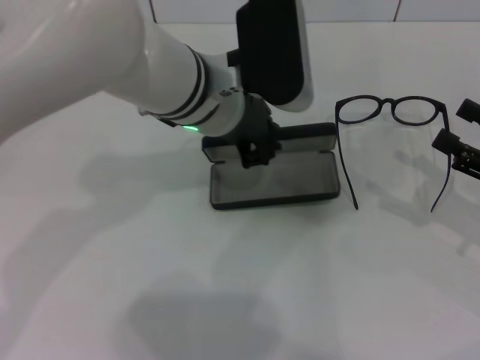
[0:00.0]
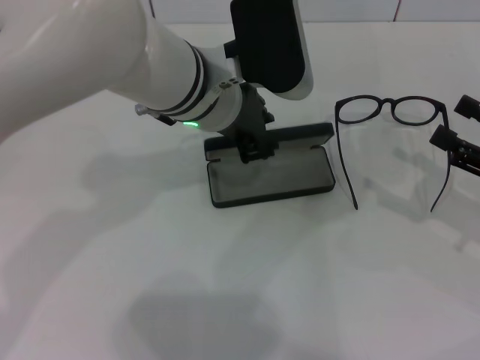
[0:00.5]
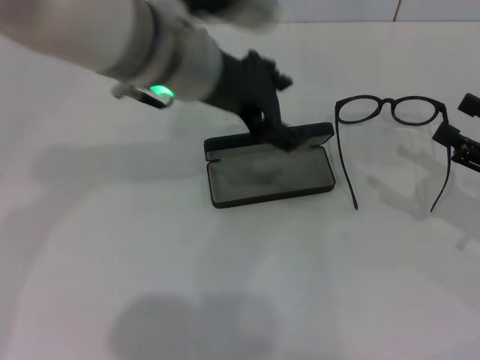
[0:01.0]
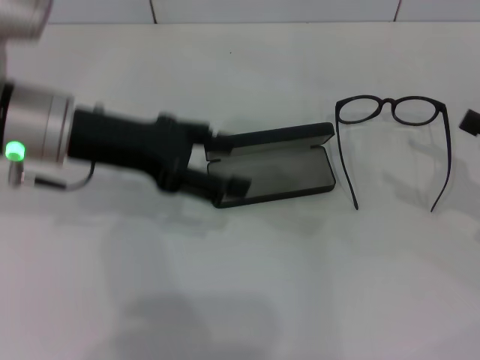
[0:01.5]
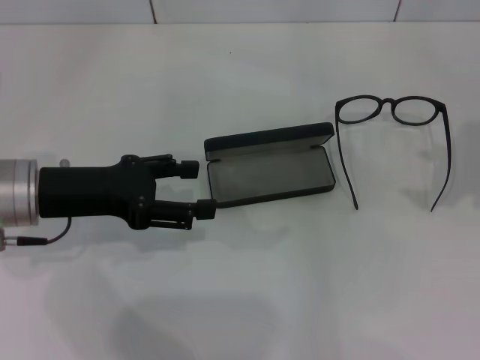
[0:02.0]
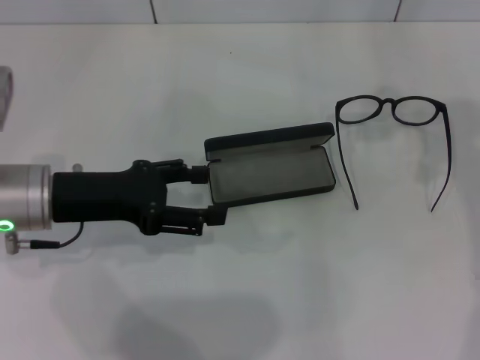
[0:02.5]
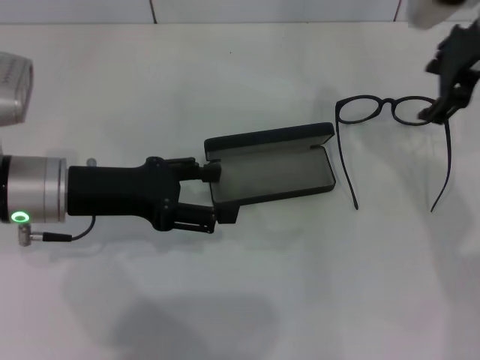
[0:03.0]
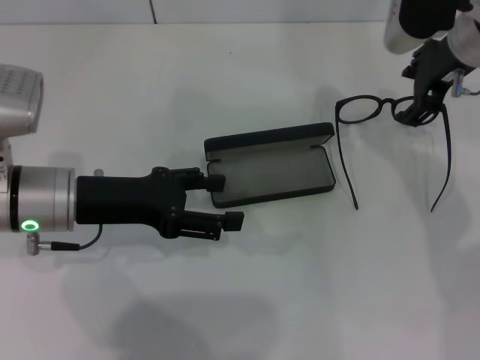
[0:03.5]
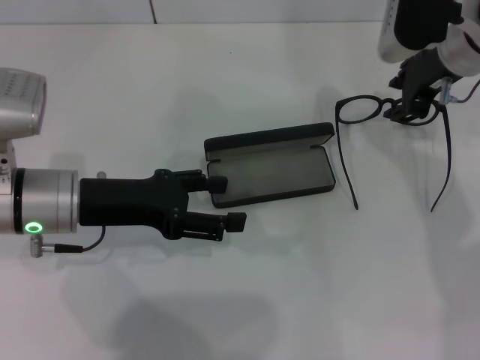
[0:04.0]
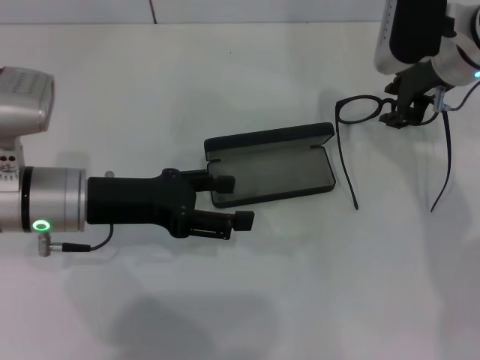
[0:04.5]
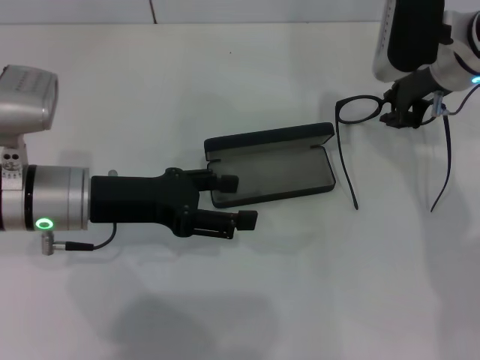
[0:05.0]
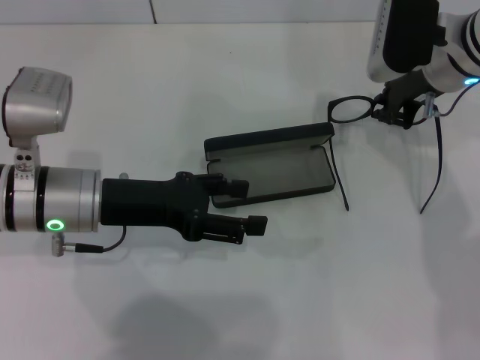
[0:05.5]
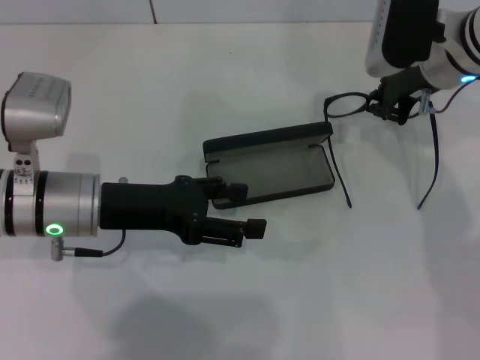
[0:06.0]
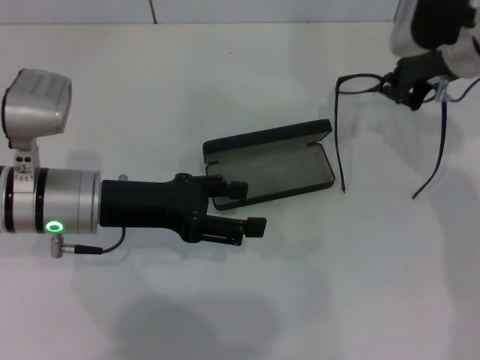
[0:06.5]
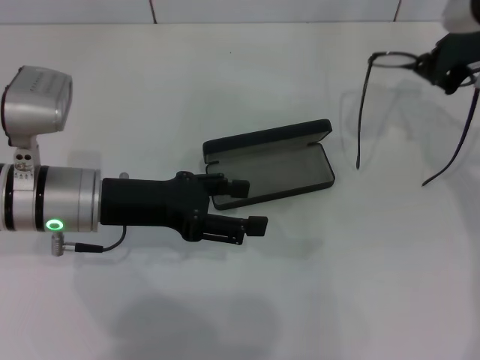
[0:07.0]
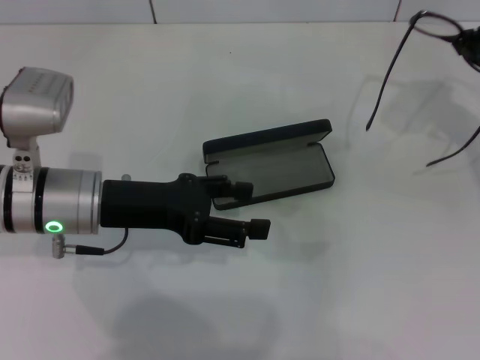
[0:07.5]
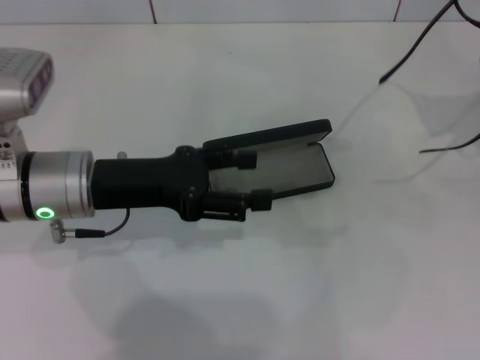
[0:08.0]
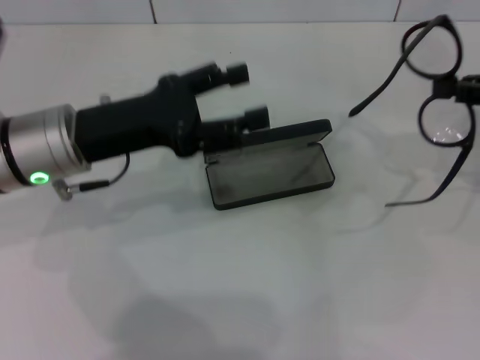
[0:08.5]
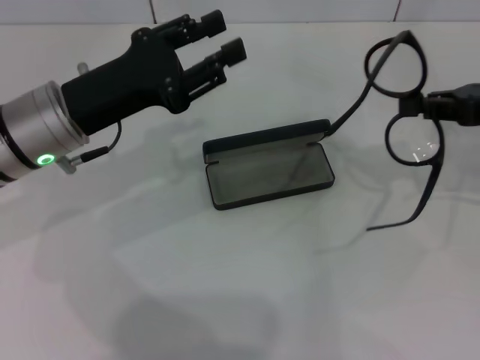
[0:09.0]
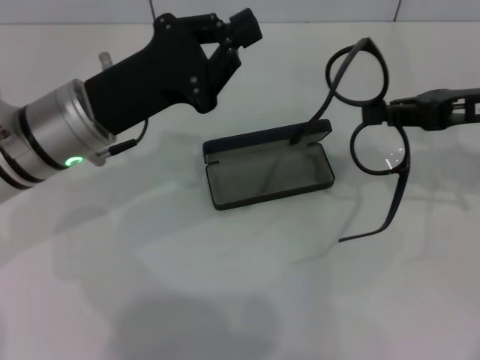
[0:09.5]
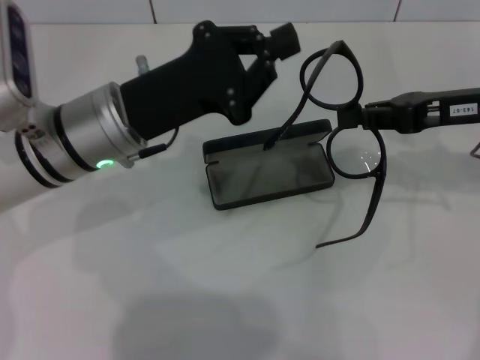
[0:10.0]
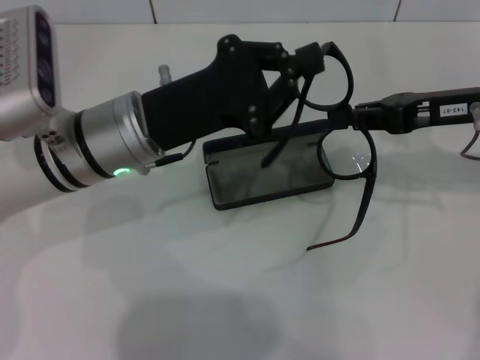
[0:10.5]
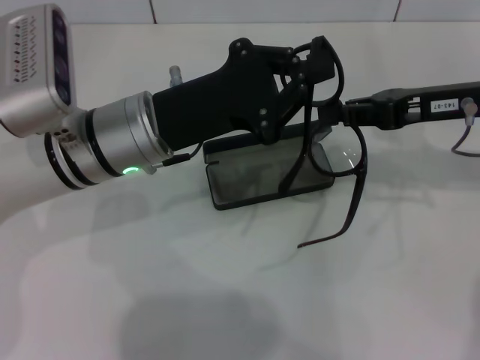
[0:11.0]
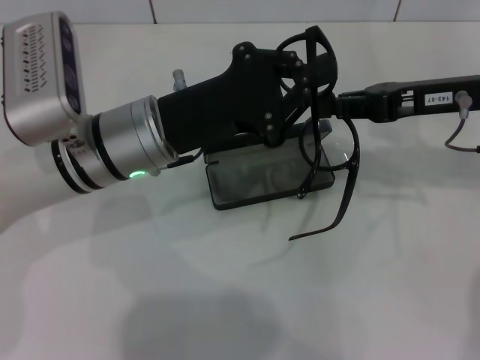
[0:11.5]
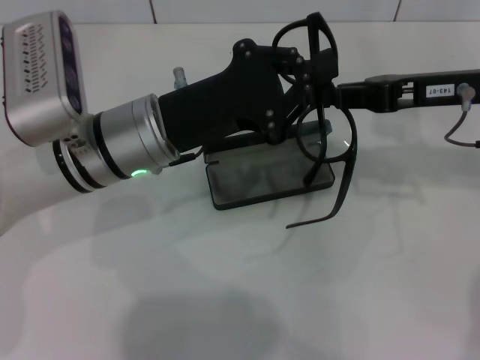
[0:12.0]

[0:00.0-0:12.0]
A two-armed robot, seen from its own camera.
Step, 0:01.0 to 0:05.5: Grab the eyeglass frame with your right hand.
0:00.0 to 0:02.0: The left gripper travels to the left by roughly 20 cm, and opens its fingers, while the right gripper heads upward and forward, covering about 15 cm.
0:02.0 to 0:04.0: The right gripper heads to the left and forward, covering approximately 20 cm.
0:04.0 to 0:06.0: The right gripper closes.
0:06.0 to 0:08.0: The right gripper travels to the right and backward by approximately 20 cm.
0:08.0 to 0:10.0: The left gripper shifts by approximately 5 cm, and closes up, while the right gripper travels to the left by roughly 10 cm.

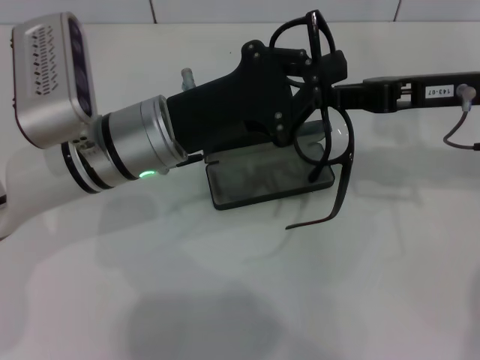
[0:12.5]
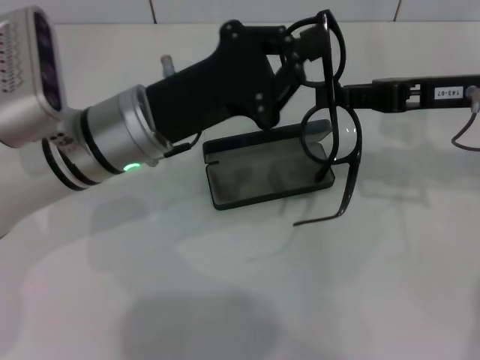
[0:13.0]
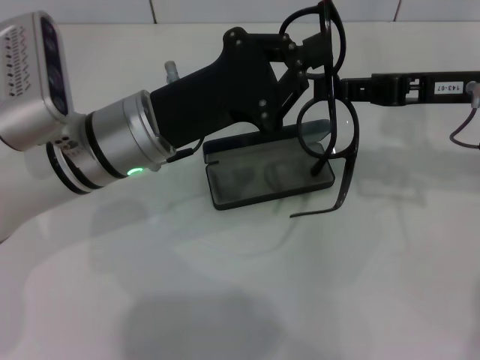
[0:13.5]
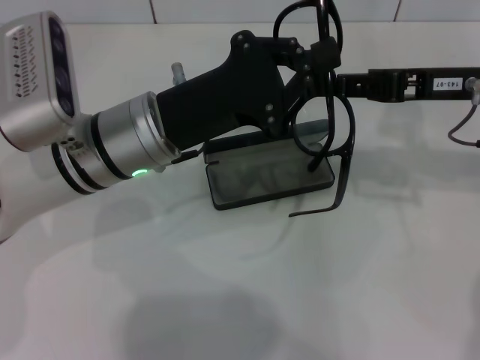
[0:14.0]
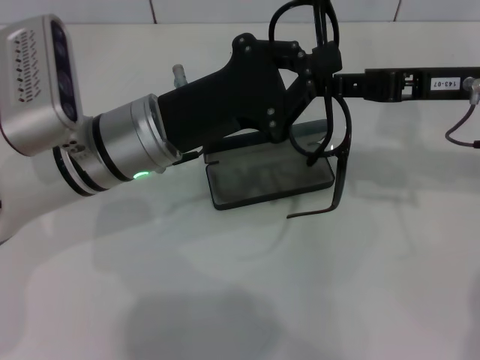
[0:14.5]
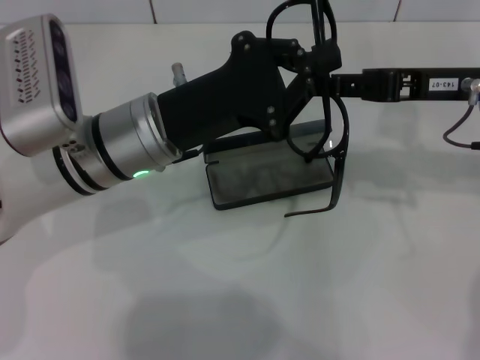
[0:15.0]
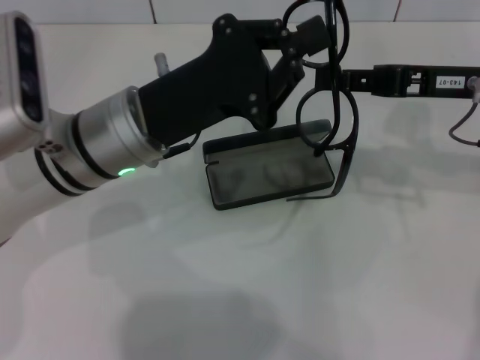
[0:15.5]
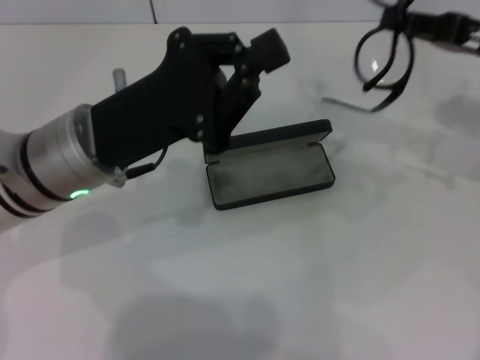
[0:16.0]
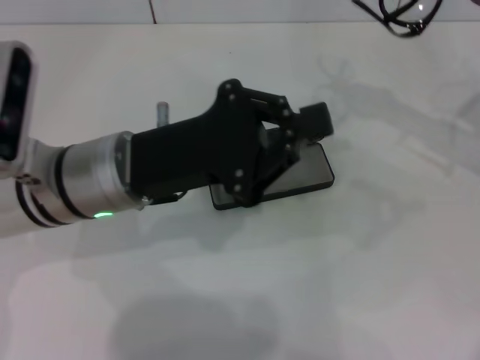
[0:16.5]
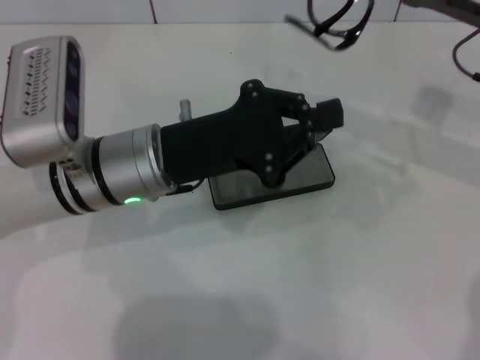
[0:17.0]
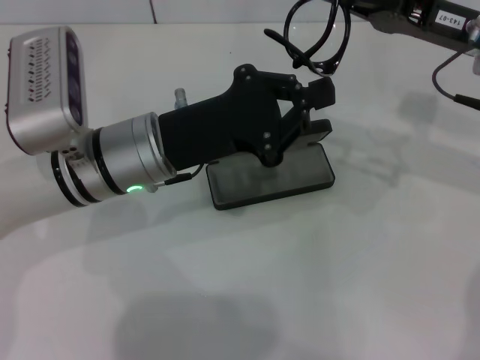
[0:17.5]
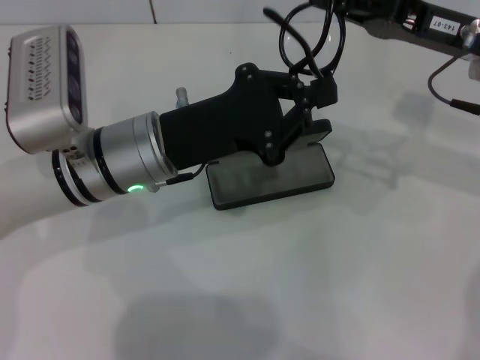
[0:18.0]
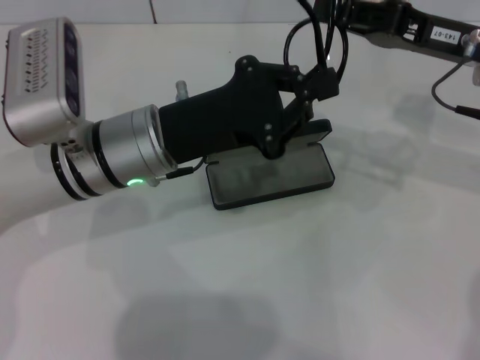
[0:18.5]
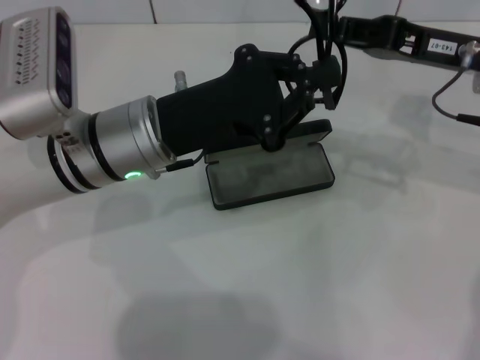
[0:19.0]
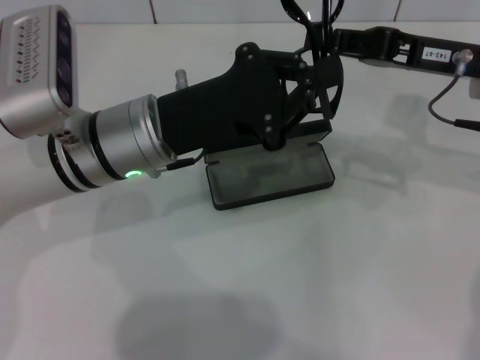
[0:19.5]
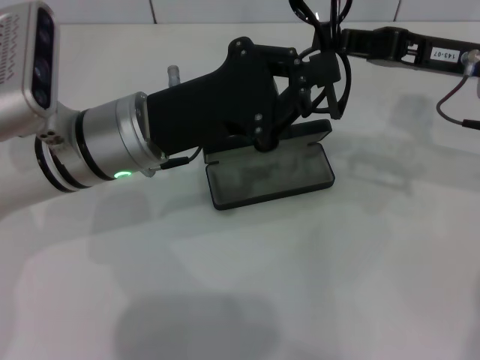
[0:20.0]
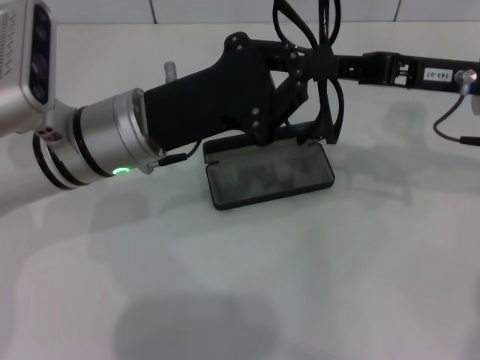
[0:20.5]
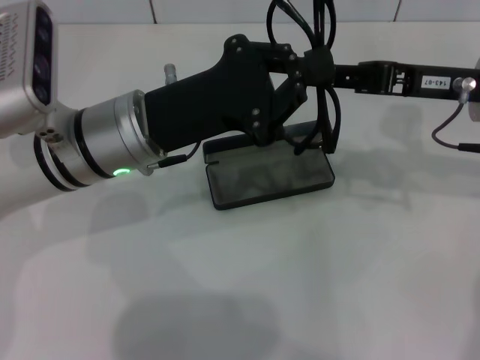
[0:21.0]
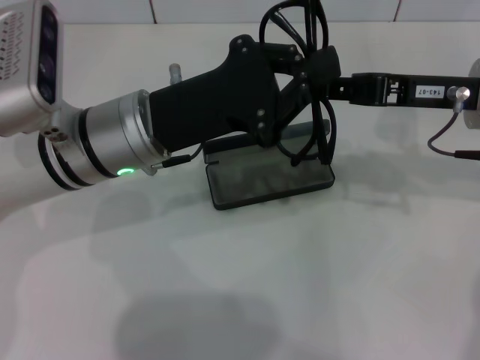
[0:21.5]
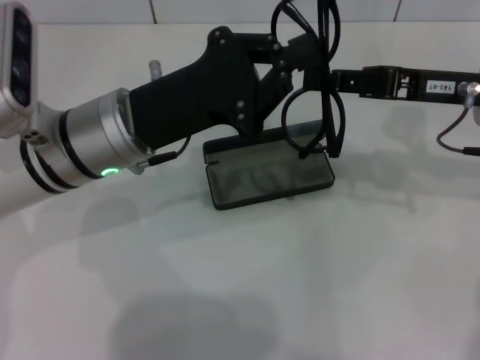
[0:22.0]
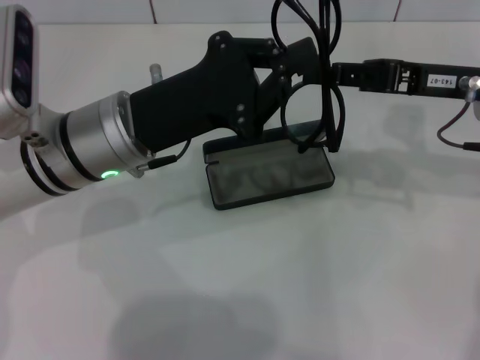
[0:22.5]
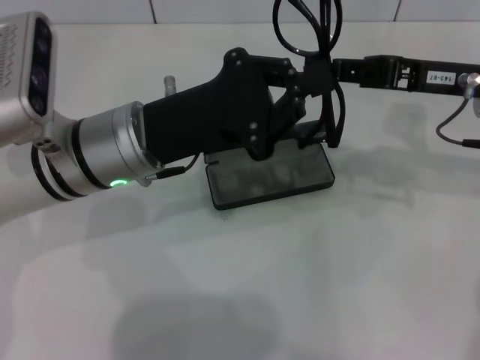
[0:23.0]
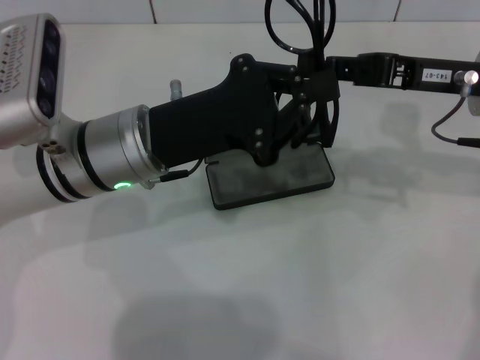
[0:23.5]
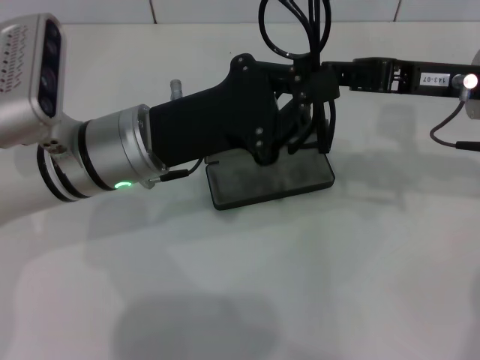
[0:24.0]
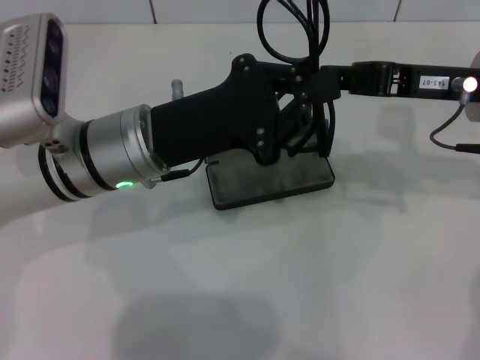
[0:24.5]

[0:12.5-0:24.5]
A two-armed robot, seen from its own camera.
Step, 0:12.5 to 0:19.5: Fold the frame with your left hand.
0:12.5 to 0:14.5: The grippers move only a little.
0:14.5 to 0:16.5: The right gripper travels to the right by some 5 cm.
0:16.5 to 0:18.5: The right gripper travels to the left by approximately 5 cm.
0:20.5 to 0:22.5: Both grippers stay put.
0:22.5 to 0:24.5: Neither gripper changes place.

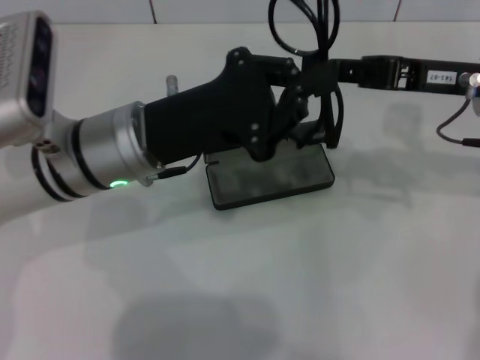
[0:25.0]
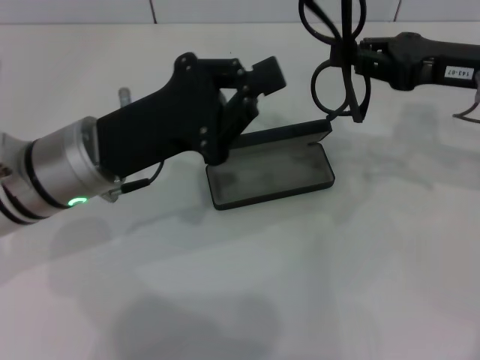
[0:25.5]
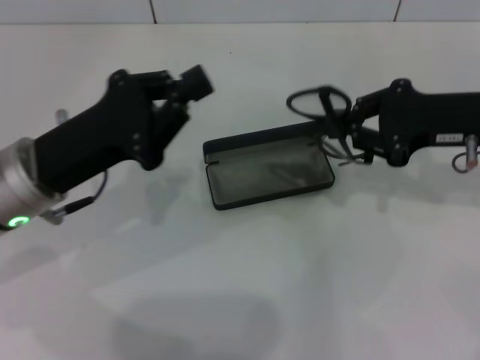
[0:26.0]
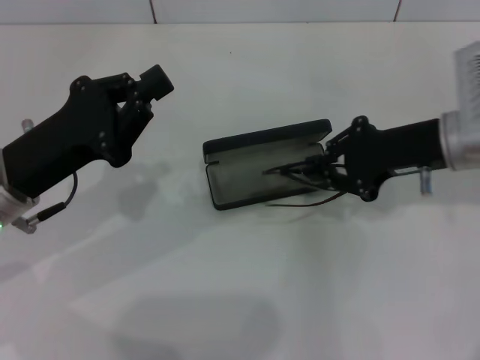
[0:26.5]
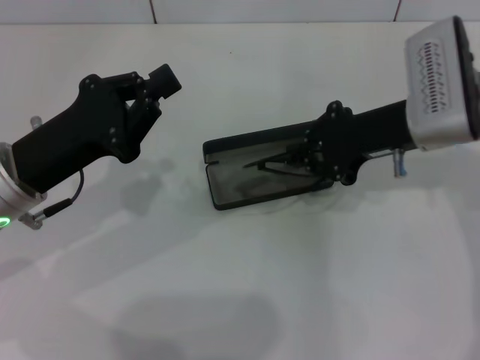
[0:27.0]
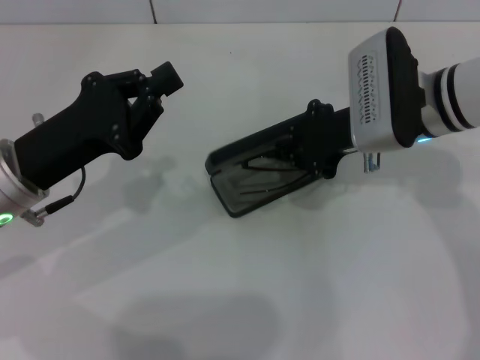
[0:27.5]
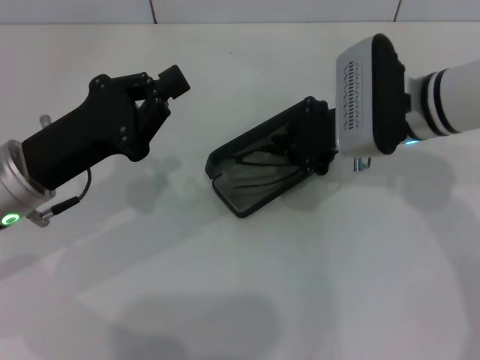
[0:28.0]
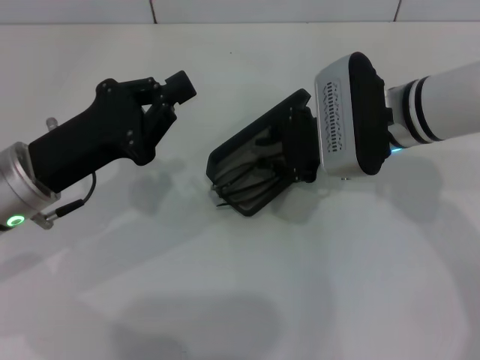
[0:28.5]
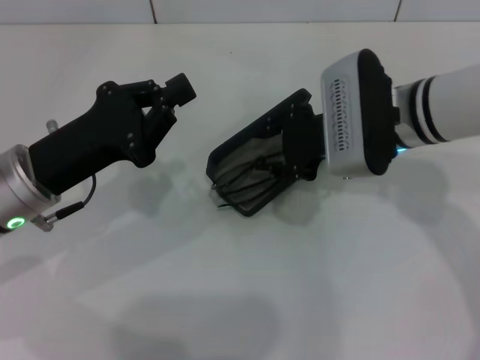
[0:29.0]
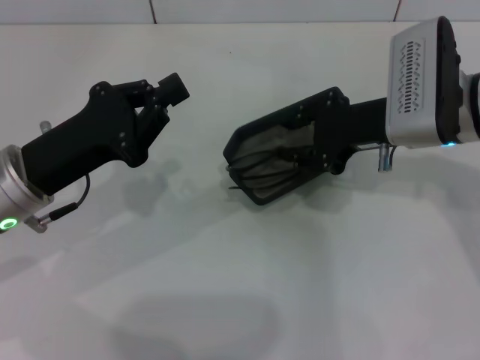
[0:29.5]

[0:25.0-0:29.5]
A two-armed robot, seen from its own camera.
0:25.0 to 0:27.0: The left gripper moves to the left, approximately 10 cm. Meanwhile the right gripper shifts by approximately 5 cm.
0:27.0 to 0:29.5: The grippers move only a little.
